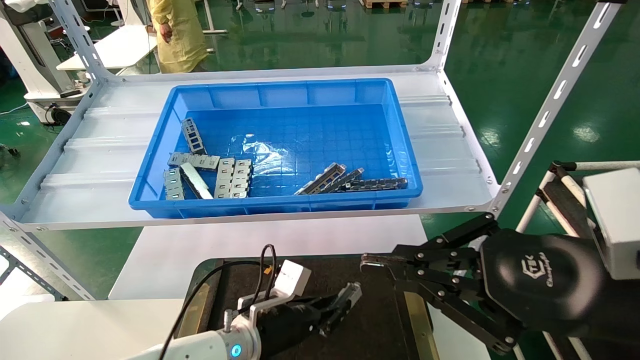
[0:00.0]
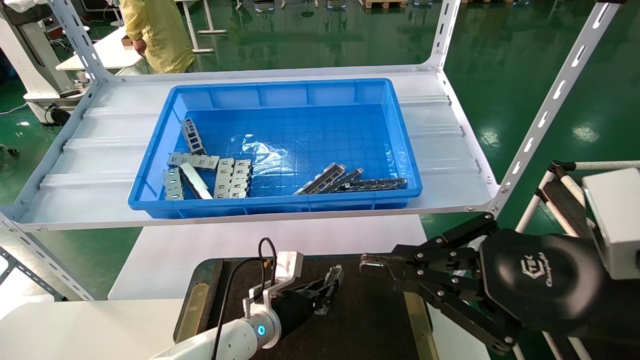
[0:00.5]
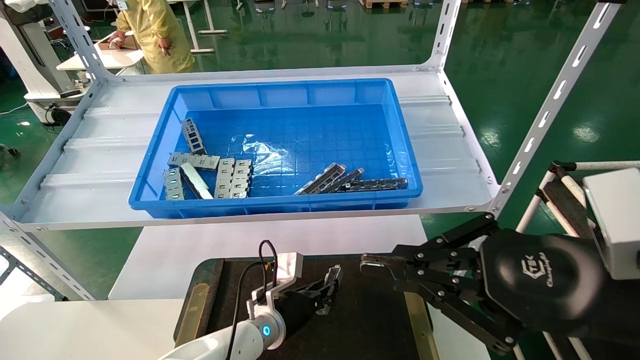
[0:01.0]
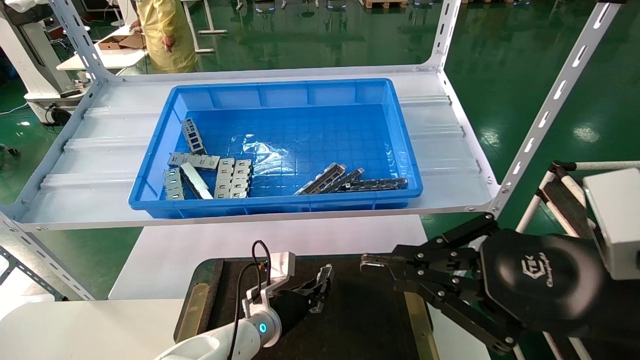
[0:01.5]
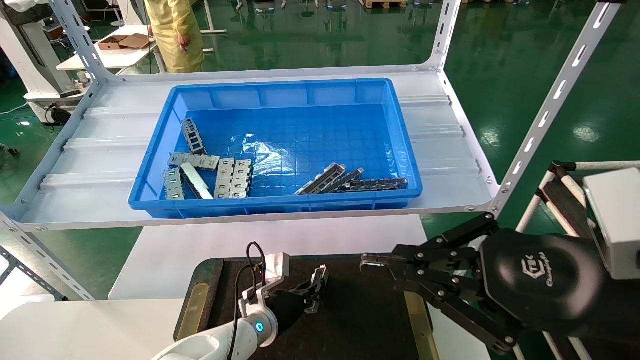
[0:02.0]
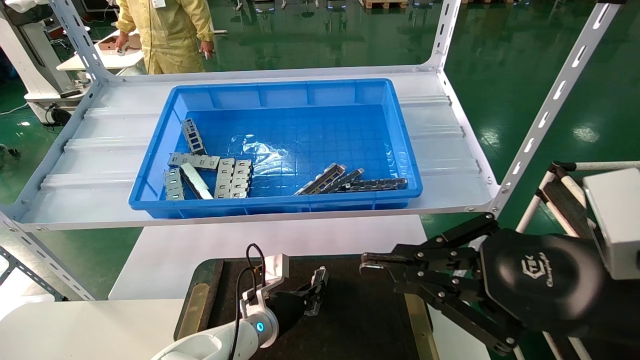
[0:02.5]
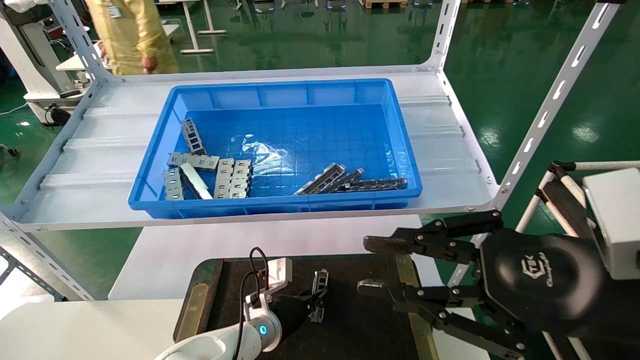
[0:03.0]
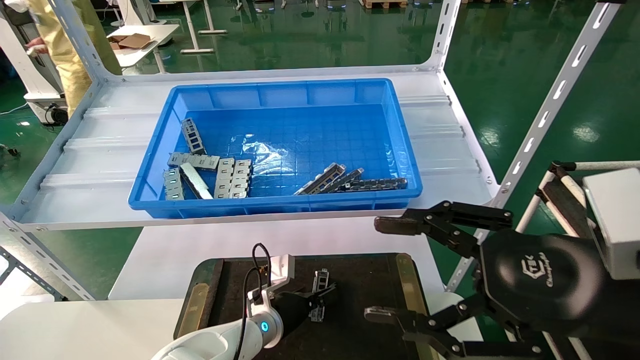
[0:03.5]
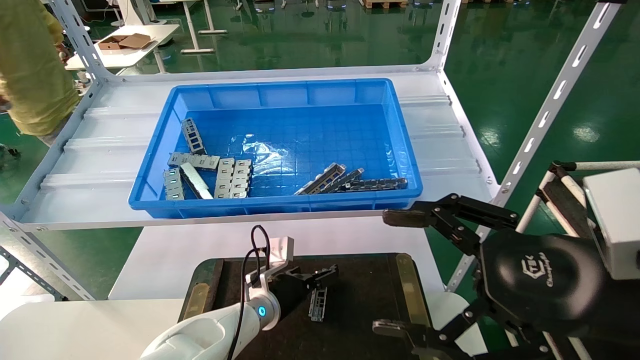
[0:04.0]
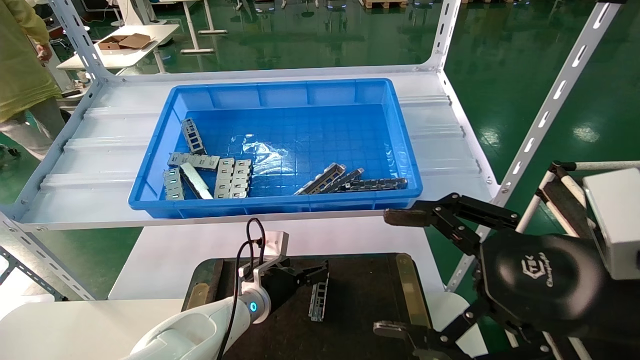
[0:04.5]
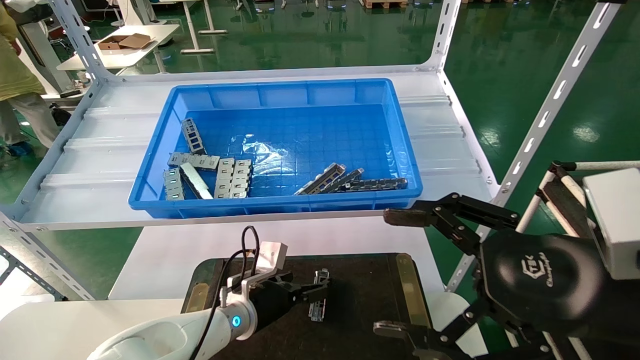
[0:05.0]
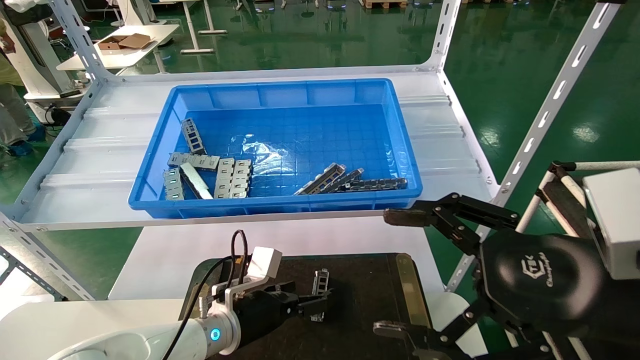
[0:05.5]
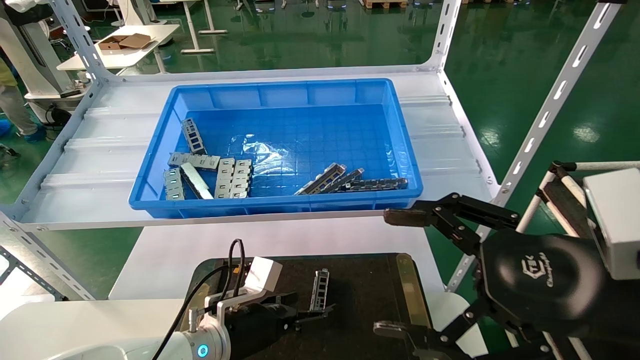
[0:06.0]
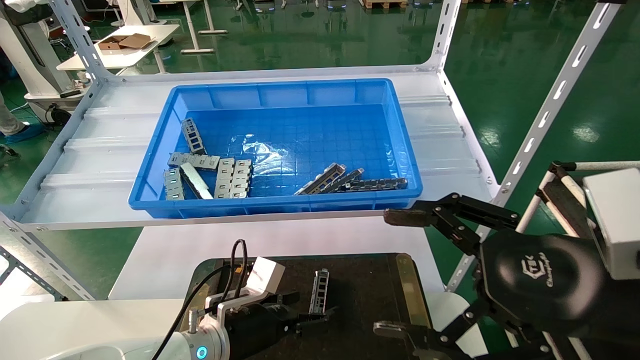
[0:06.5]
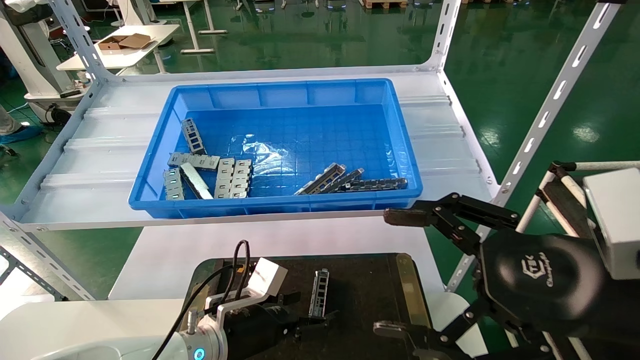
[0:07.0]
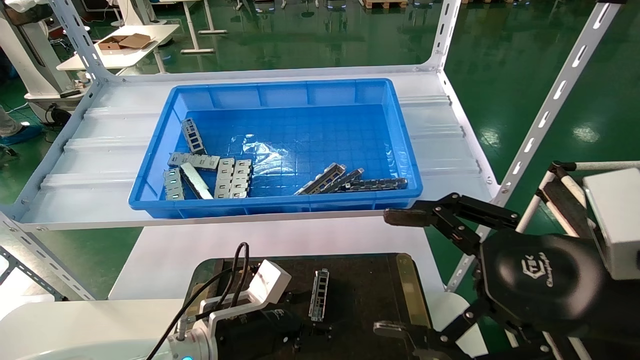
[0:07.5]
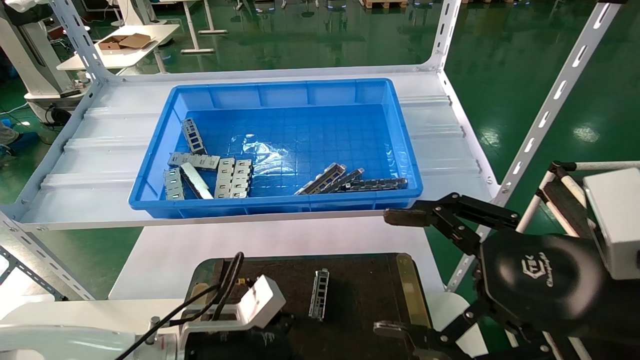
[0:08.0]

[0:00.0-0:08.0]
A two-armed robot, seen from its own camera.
Task of the whole recording: Grasp the part with one hand and place it on the black container.
Step, 0:00.0 to 0:03.5: Place the front USB bracket into the box.
0:00.0 to 0:02.0: The left gripper moves forward, about 5 cm.
0:02.0 to 0:04.0: The left gripper opens its fingers. Meanwhile the right gripper opens up.
0:04.0 to 0:06.0: The left gripper travels backward by roughly 10 cm.
0:06.0 to 0:08.0: The left gripper travels backward by roughly 5 cm.
